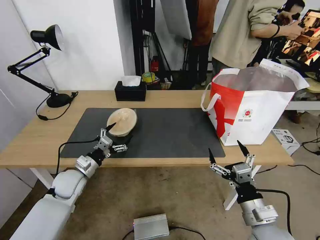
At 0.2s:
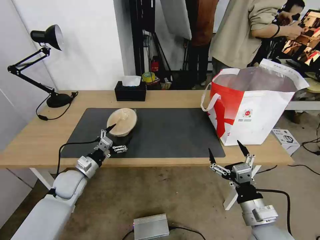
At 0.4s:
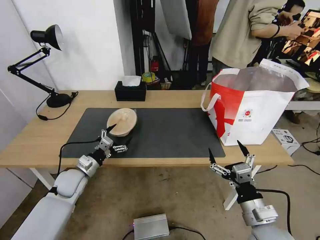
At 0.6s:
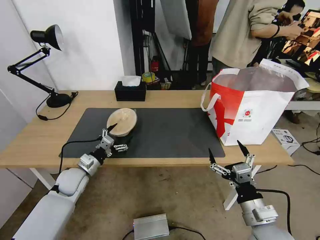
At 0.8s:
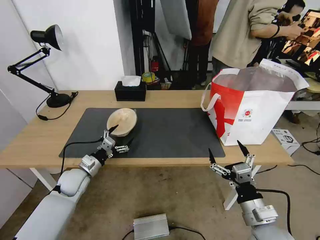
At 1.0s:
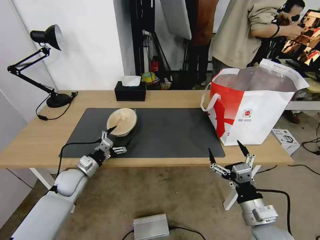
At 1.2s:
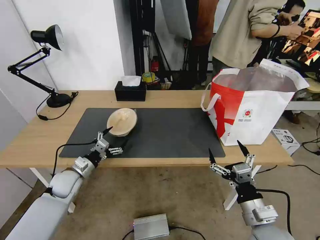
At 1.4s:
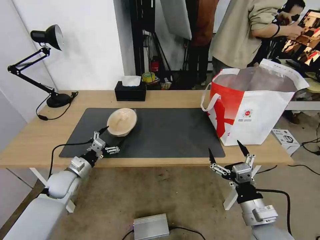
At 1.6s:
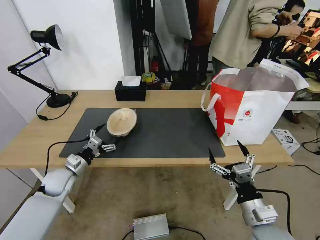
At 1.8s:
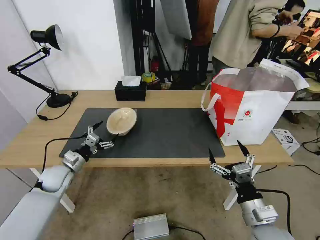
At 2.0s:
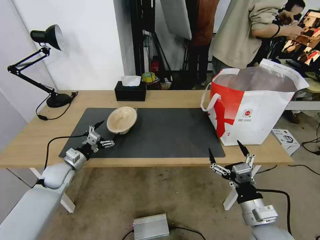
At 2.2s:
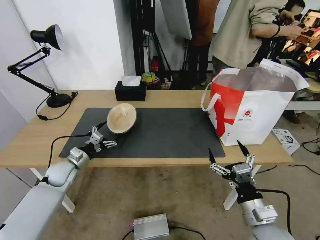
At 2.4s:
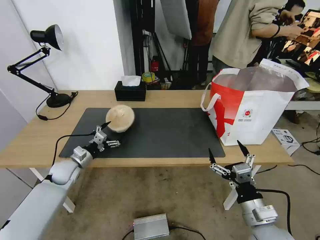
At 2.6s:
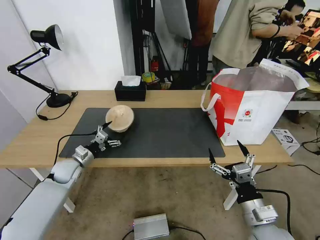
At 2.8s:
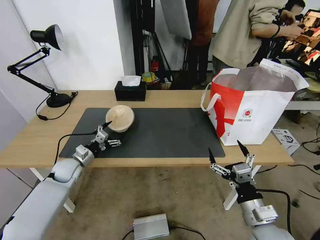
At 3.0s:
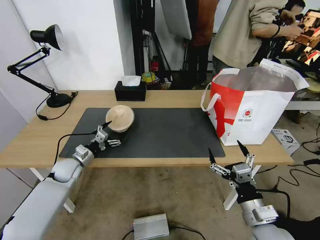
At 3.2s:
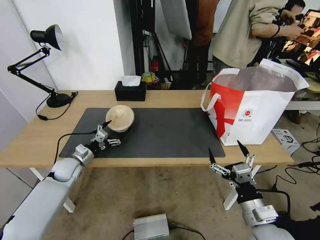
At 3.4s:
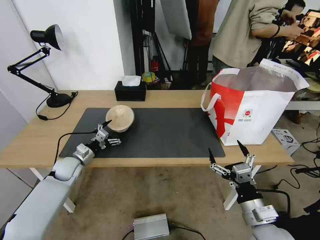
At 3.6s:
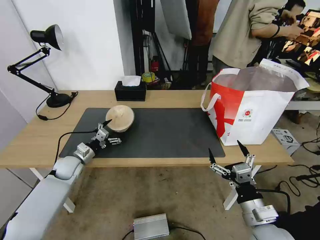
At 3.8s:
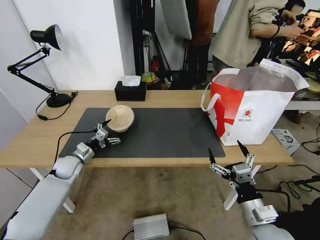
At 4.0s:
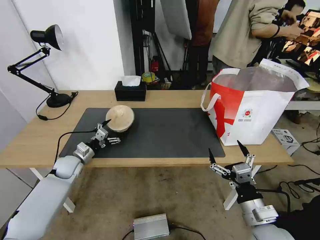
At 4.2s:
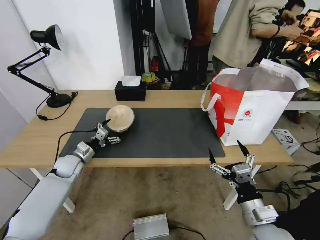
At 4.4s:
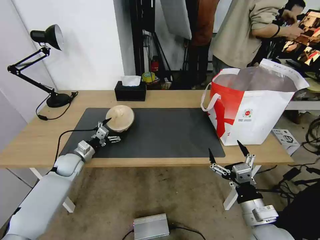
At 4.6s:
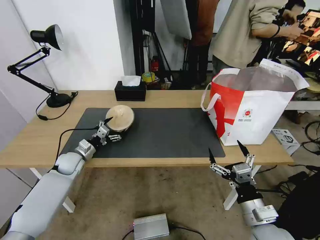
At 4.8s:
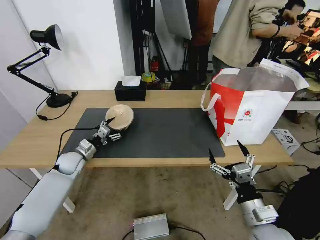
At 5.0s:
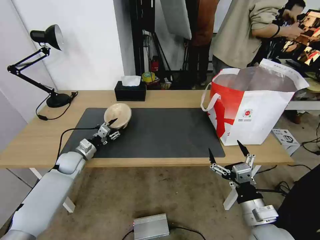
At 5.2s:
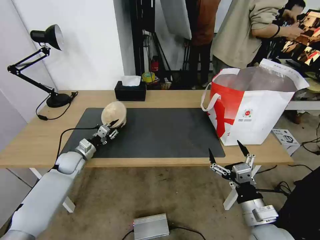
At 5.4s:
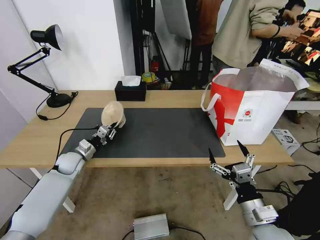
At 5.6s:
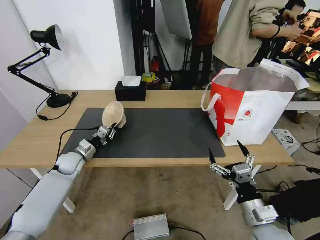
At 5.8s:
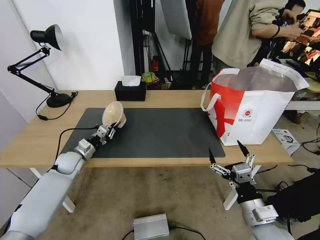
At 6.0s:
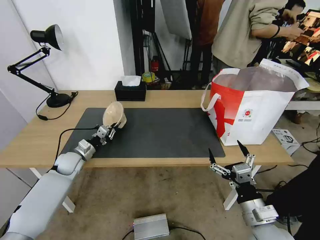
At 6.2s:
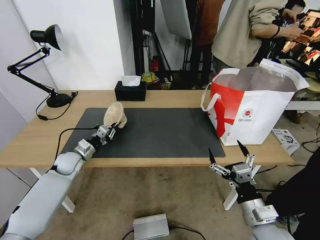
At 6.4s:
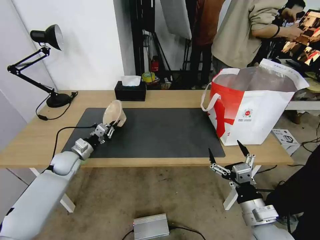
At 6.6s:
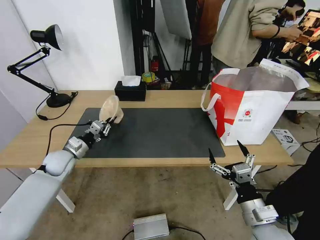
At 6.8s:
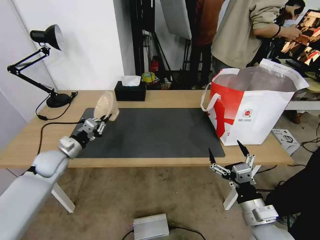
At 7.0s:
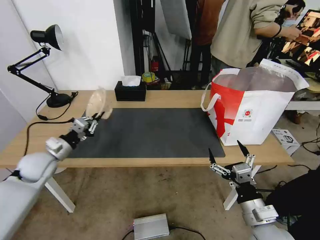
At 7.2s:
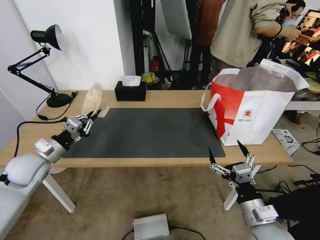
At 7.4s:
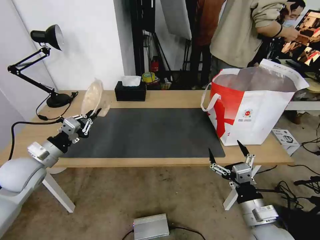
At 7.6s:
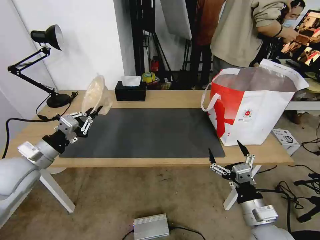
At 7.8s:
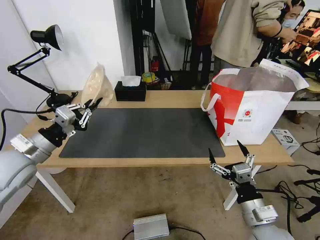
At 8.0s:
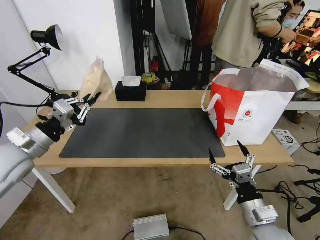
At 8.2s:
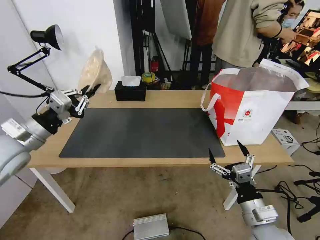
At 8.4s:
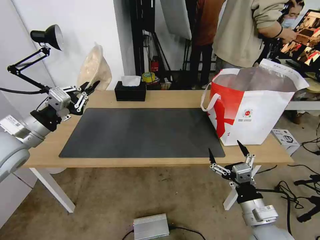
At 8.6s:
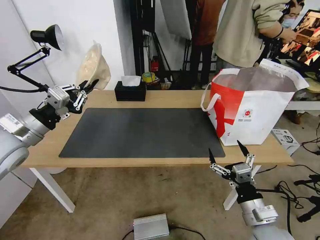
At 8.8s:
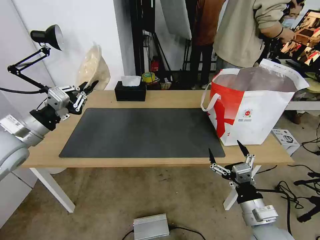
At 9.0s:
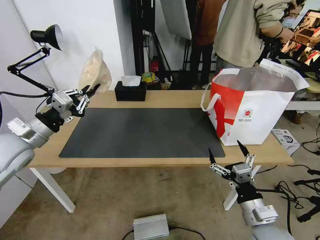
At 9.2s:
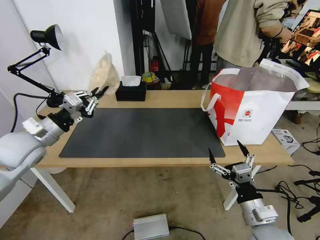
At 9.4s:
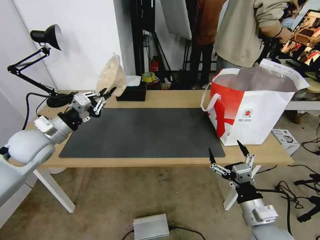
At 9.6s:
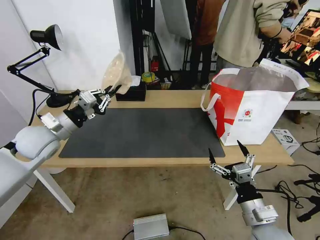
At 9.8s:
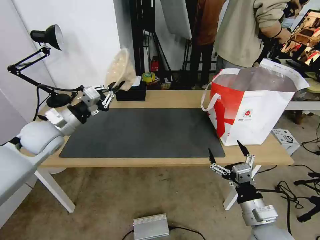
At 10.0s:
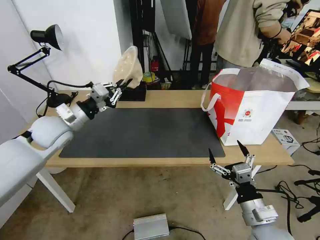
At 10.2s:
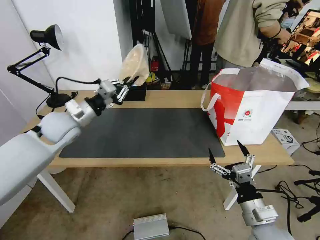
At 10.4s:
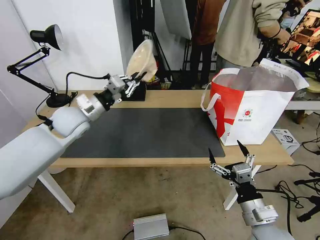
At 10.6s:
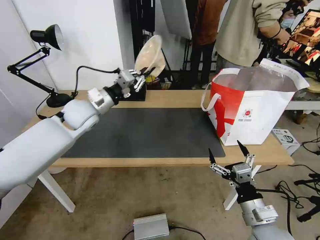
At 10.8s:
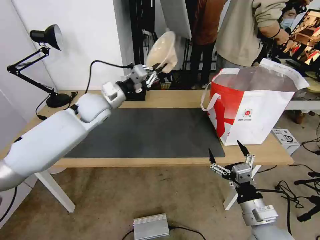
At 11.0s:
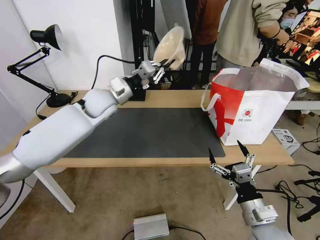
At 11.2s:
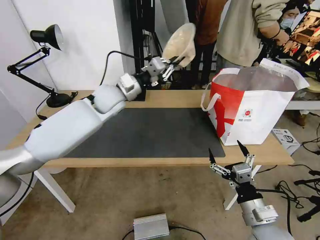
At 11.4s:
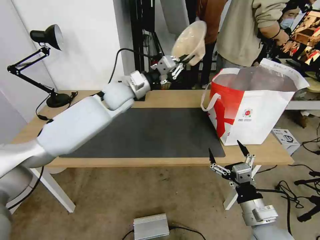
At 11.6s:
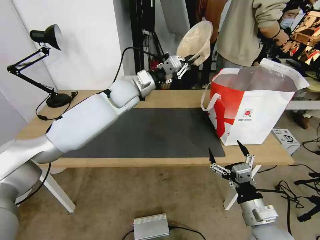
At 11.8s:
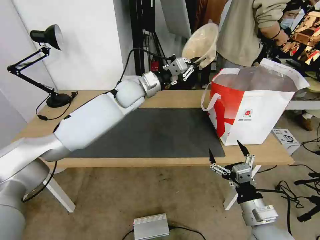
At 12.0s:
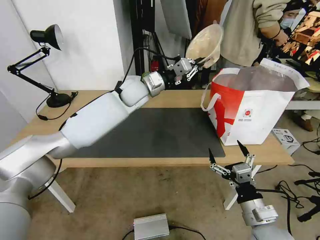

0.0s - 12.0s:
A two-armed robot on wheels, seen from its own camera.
Task of the whole recording: Pick up the trash from the table and place it into the takeout bag.
0.0s - 1.6s: The grippers move only a little.
1.6s - 3.0s: The left gripper moves forward, roughly 5 cm.
3.0s - 4.4s: The grippers make only small movements.
4.4s - 6.0s: The left gripper closes.
6.0s - 7.6s: The left gripper shifts about 20 cm upward and backward.
7.6s - 9.0s: The left gripper changes place by roughly 5 cm.
9.0s - 10.4s: The left gripper goes some 15 cm forward and to the right.
10.4s - 12.0s: The left gripper goes approximately 20 cm to the right and forward.

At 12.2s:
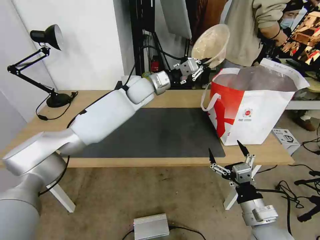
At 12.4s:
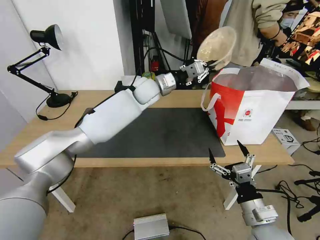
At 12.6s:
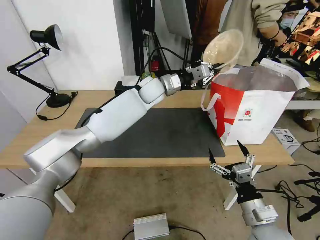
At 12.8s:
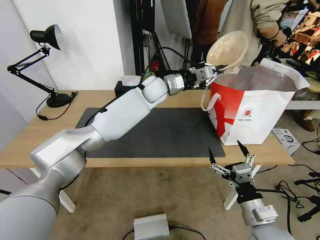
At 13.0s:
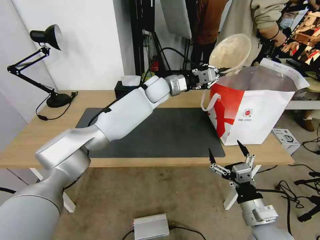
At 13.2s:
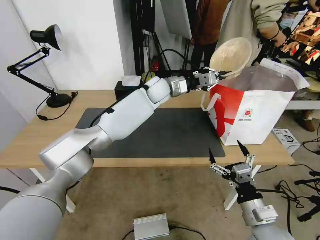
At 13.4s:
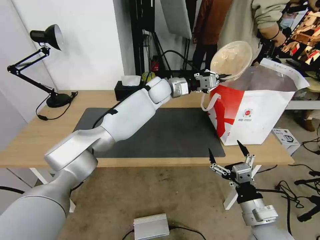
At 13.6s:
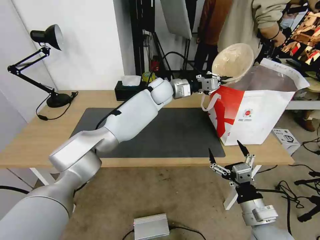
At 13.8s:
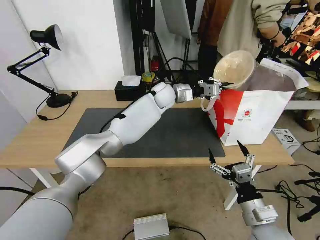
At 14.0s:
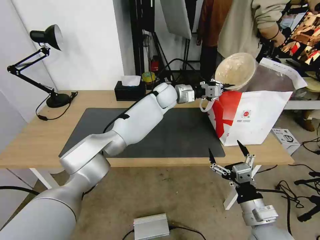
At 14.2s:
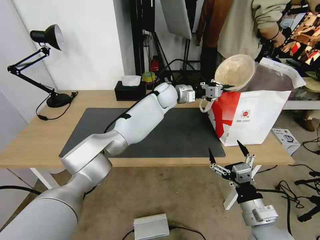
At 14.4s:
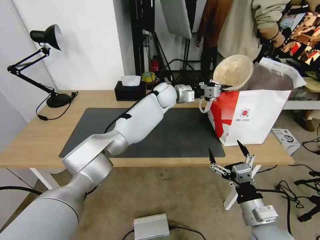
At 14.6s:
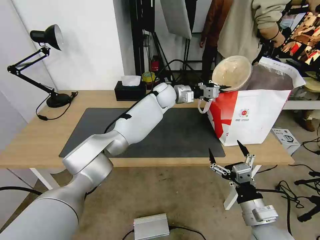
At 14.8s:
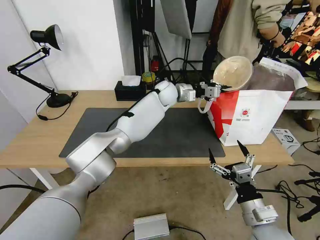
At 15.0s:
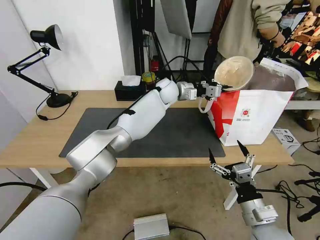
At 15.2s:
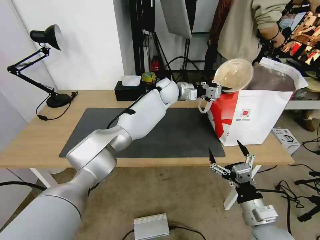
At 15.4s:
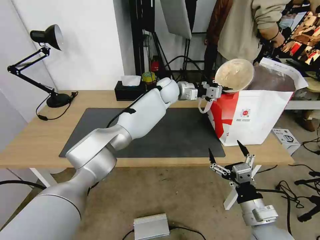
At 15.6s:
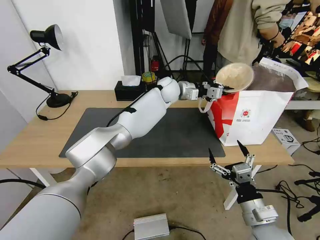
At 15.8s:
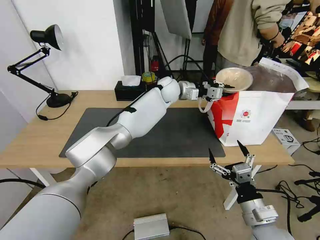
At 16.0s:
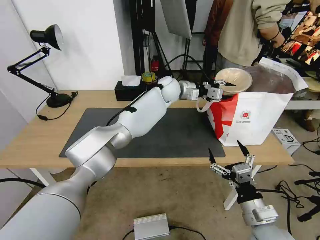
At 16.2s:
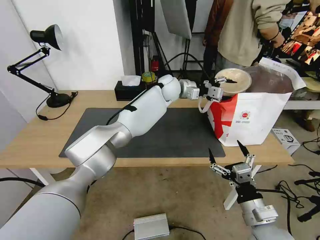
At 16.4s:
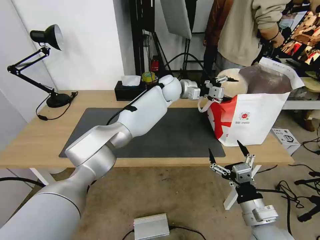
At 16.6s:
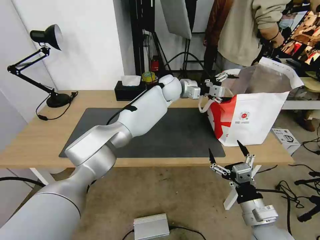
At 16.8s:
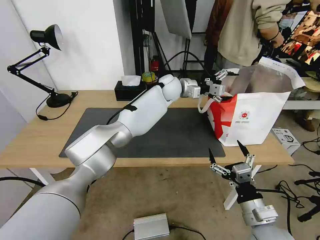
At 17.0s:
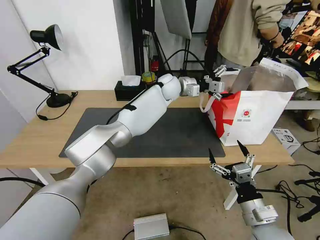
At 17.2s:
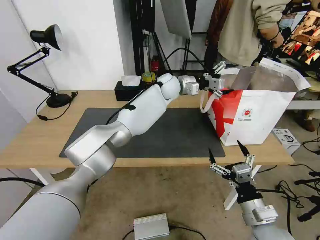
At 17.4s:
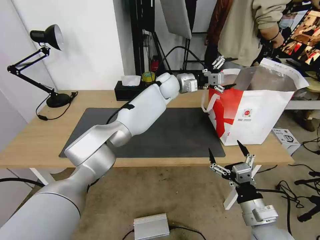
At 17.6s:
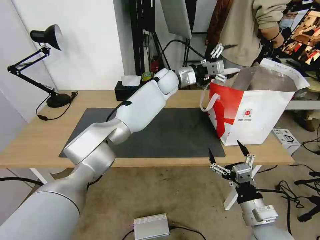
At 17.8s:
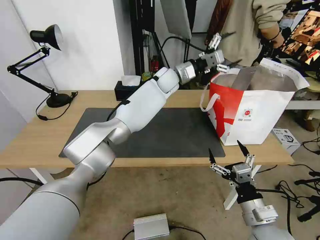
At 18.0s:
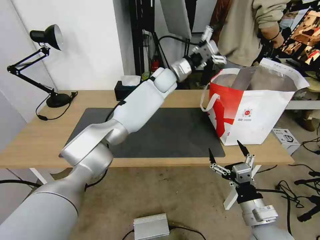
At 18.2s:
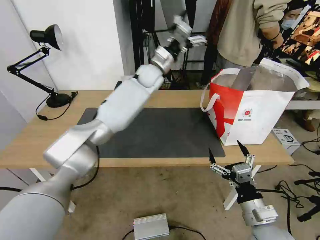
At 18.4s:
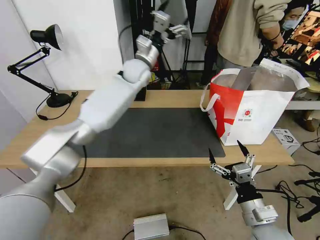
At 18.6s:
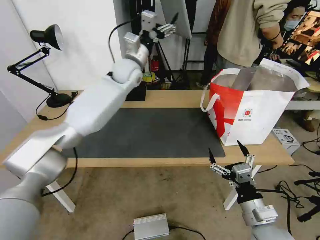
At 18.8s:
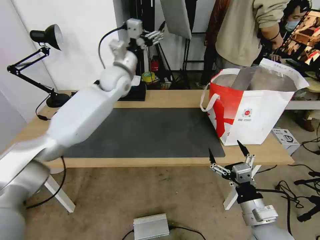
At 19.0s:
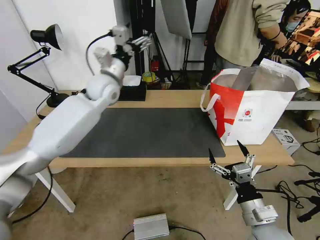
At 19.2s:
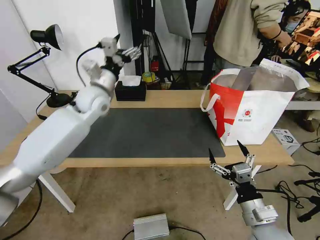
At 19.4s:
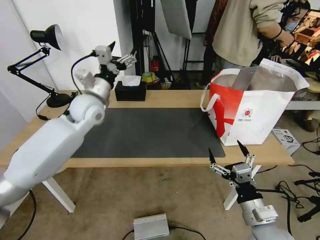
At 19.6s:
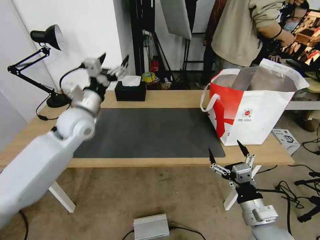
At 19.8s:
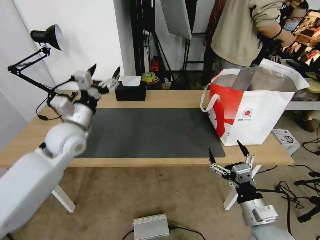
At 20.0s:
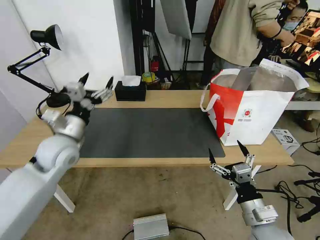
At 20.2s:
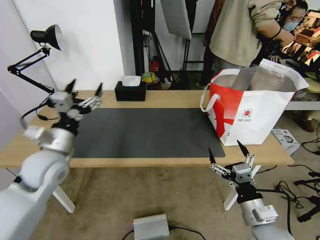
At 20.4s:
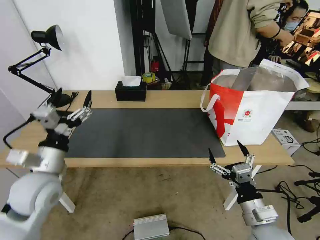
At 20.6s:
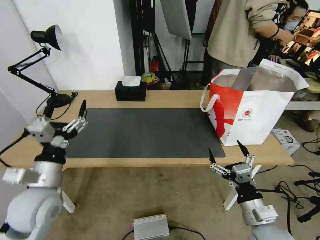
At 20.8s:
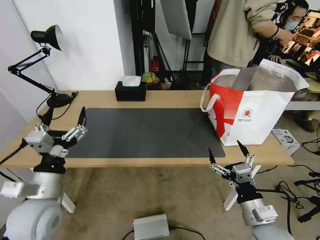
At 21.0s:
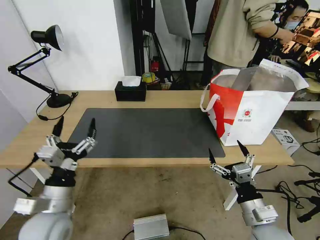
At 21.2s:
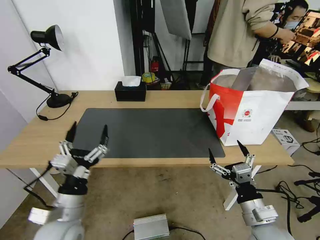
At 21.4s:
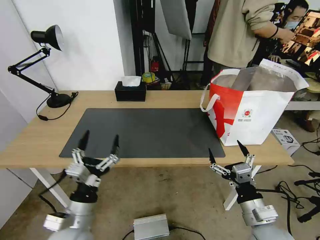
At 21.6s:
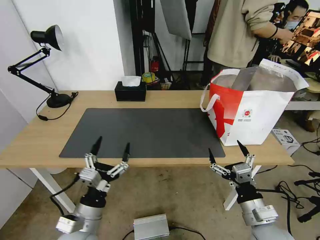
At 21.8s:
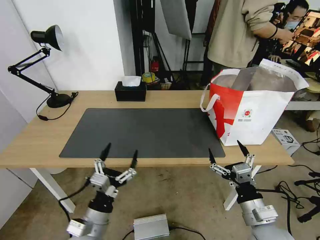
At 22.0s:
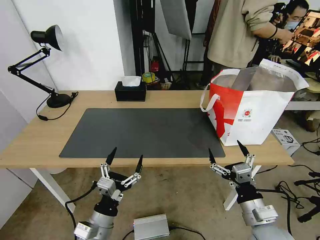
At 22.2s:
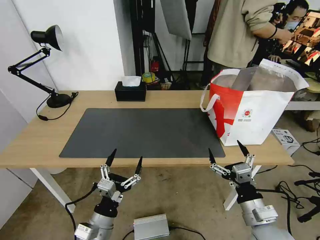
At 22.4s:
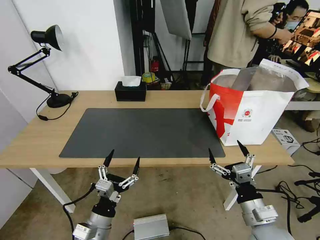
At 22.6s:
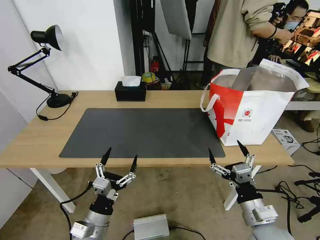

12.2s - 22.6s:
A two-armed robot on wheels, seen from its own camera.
Task of the whole recording: Pick up the trash from the table and place it into the takeout bag.
12.2s - 13.6s: The left gripper moves to the right, approximately 5 cm.
13.6s - 15.2s: There are only small adjustments of the grippers.
15.2s - 16.6s: The left gripper opens up.
16.6s - 18.2s: The left gripper moves to the left, some 5 cm.
18.2s - 19.6s: The left gripper heads to the left and backward, covering approximately 30 cm.
19.6s - 21.2s: The left gripper travels backward and downward by some 30 cm.
21.2s - 22.6s: The left gripper moves downward, some 10 cm.
